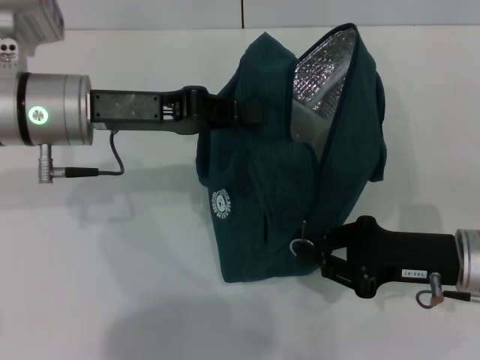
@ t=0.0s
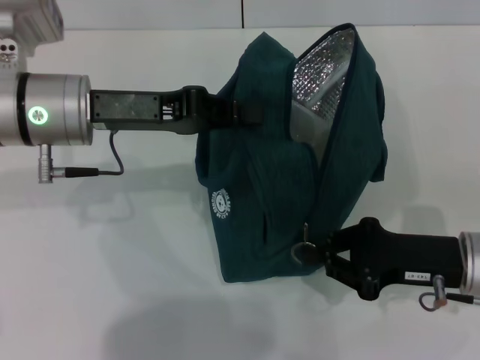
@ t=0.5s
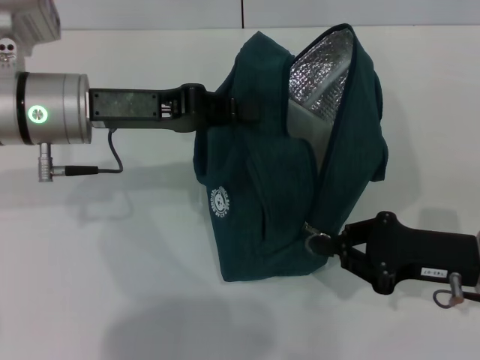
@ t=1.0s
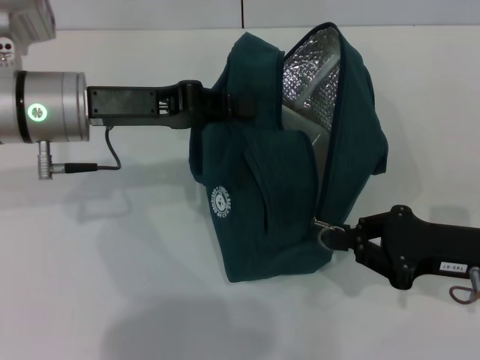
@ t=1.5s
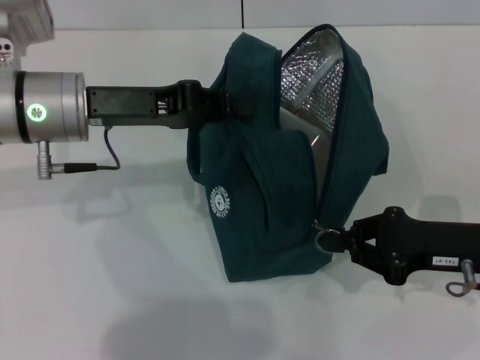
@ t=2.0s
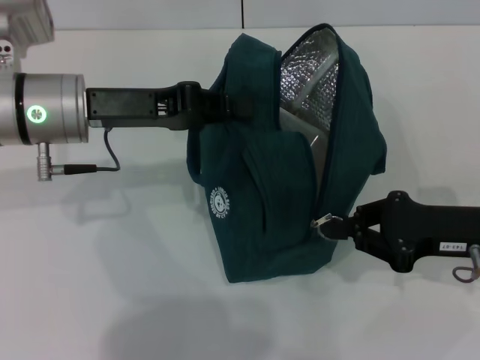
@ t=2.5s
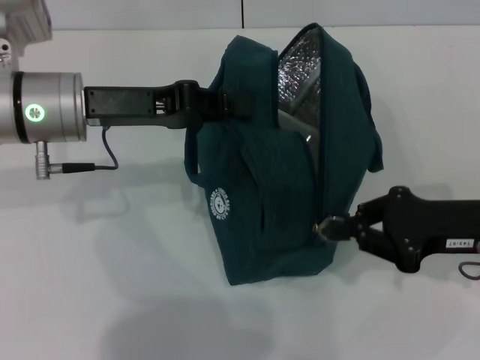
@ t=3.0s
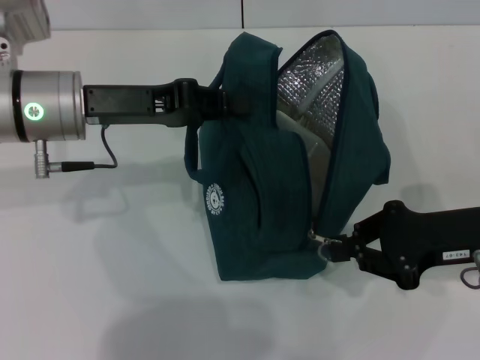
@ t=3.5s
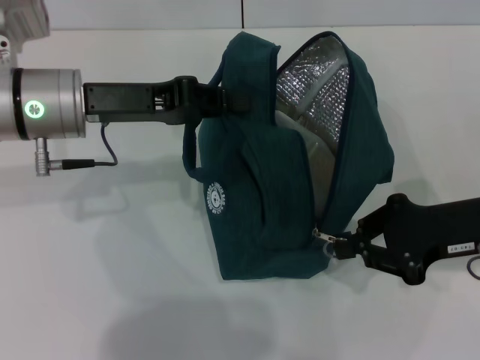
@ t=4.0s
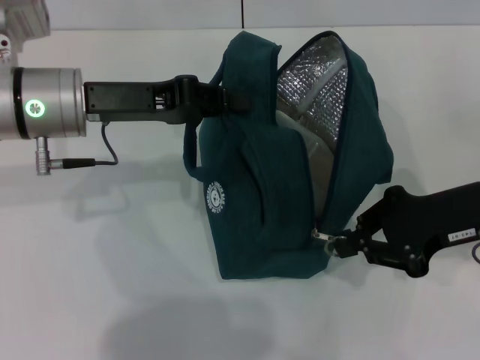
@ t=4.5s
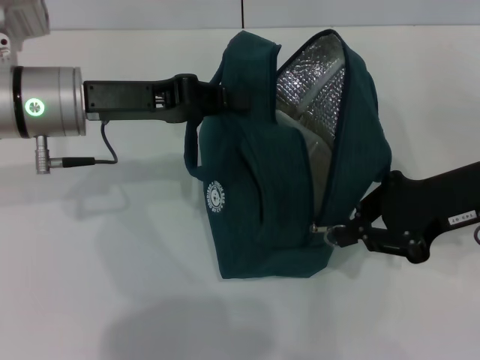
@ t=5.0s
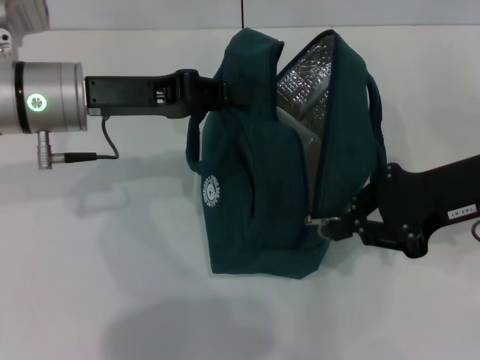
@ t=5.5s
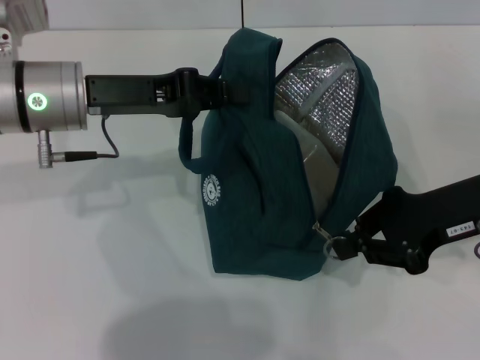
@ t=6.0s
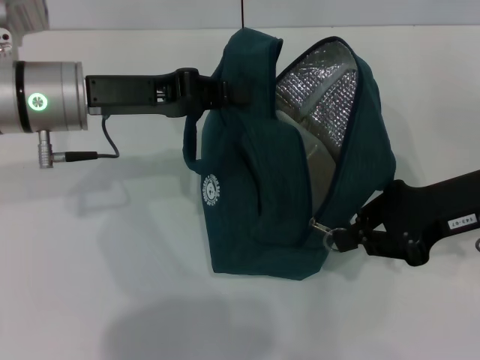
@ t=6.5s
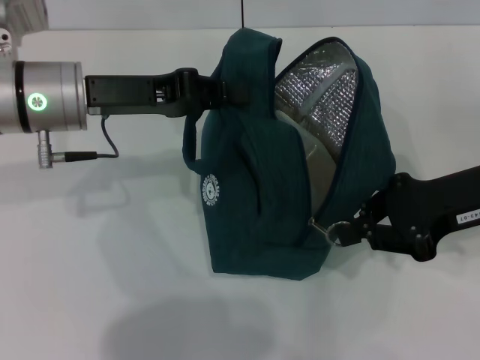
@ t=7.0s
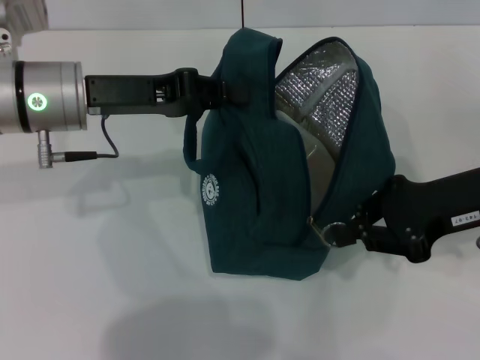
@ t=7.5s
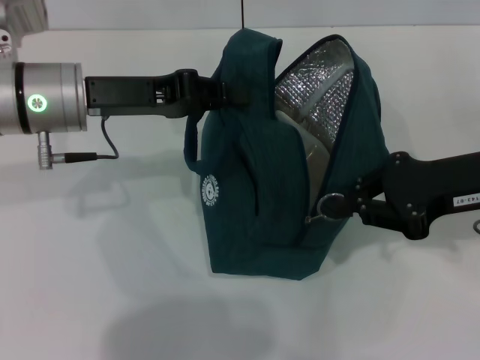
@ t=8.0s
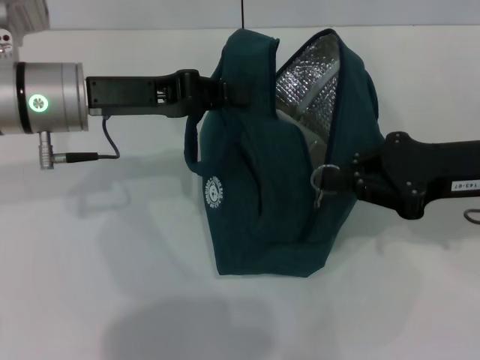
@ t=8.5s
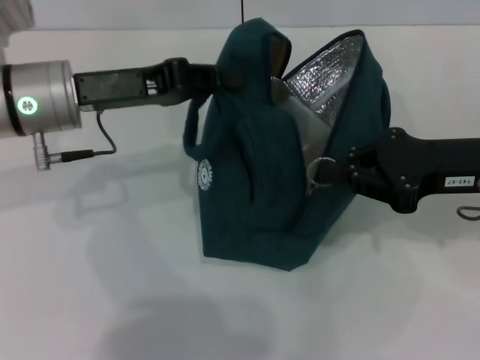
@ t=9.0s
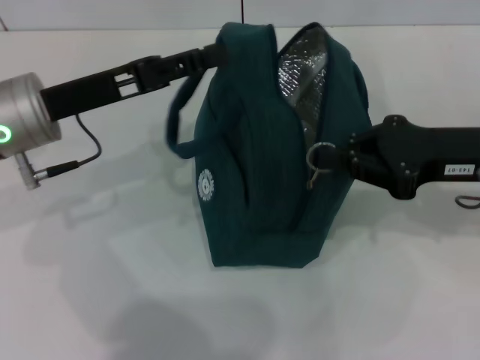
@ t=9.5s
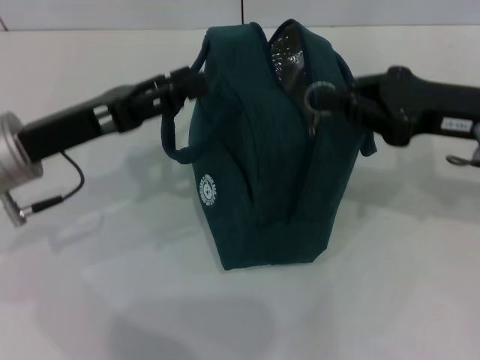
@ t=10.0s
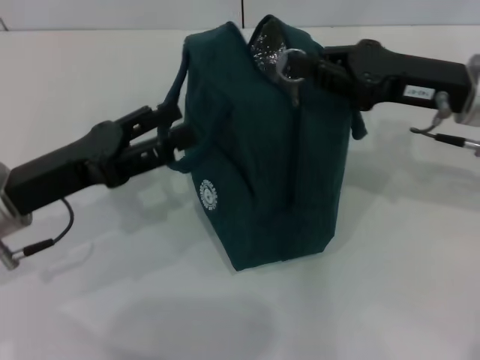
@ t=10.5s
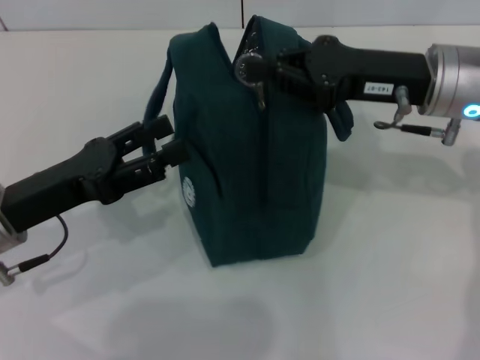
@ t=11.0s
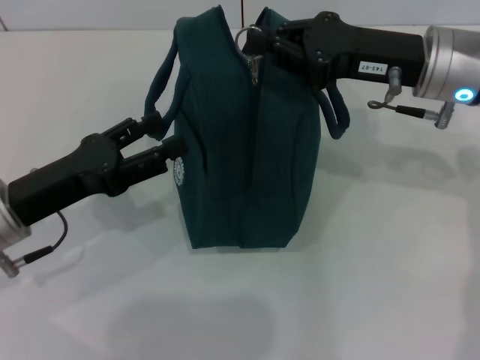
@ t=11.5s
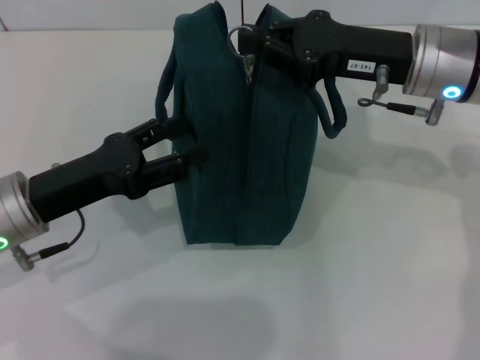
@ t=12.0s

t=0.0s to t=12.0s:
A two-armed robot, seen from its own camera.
Step, t=0.0s to t=9.5s: Hold the lunch bag with your left hand.
t=0.0s to t=2.0s: The grippers make only small movements.
t=2.0s to t=4.0s: The grippers move only a little.
t=4.0s to t=8.0s: There are only small adjustments of the grippers.
t=8.0s to t=10.0s: The left gripper goes approximately 5 cm backward, and opens up.
t=10.0s to t=12.0s: The left gripper changes place by some 5 cm, while the right gripper moves to the left, about 5 cm.

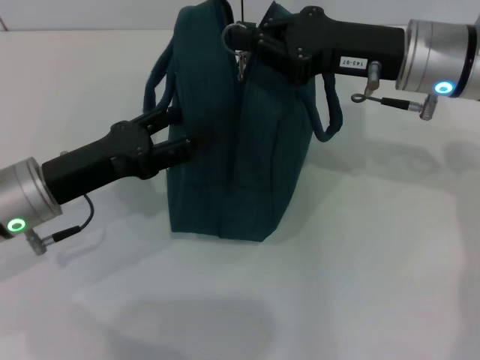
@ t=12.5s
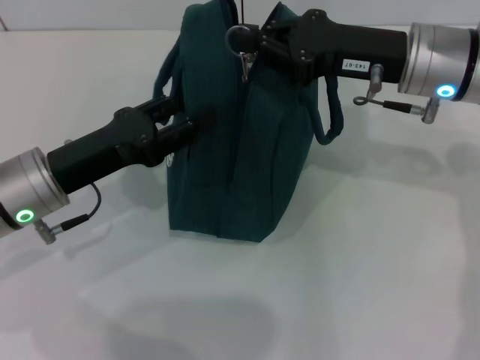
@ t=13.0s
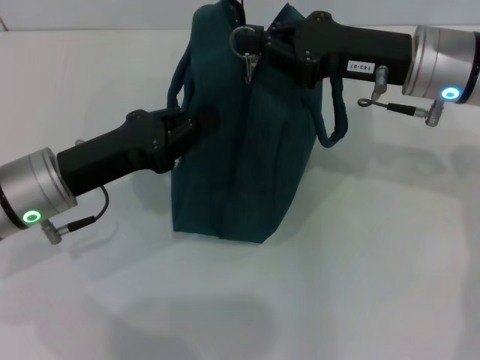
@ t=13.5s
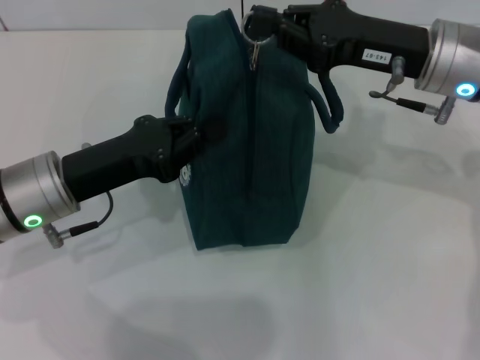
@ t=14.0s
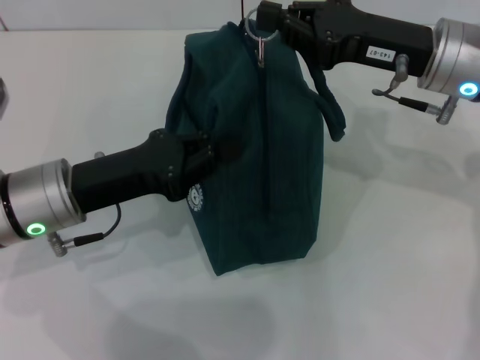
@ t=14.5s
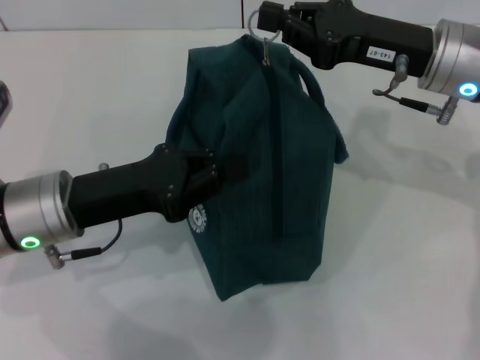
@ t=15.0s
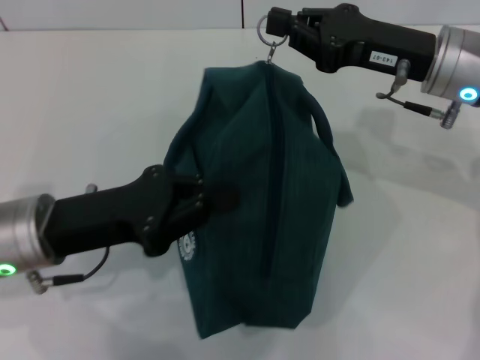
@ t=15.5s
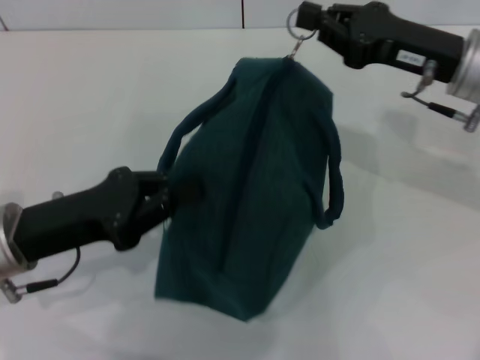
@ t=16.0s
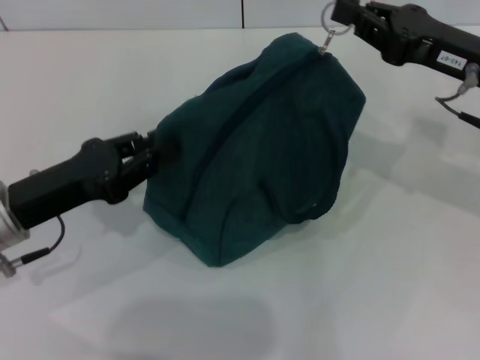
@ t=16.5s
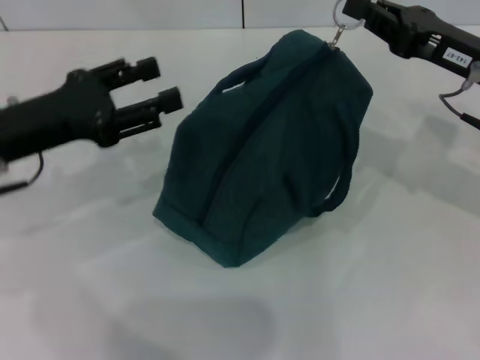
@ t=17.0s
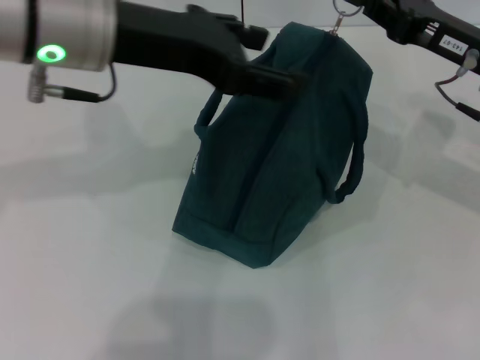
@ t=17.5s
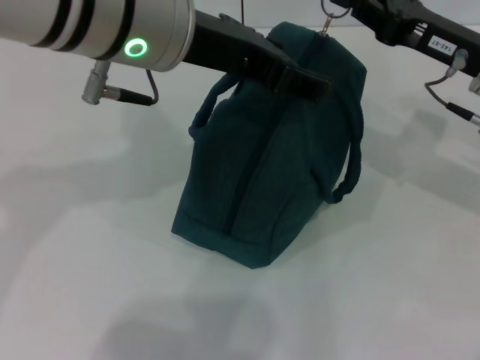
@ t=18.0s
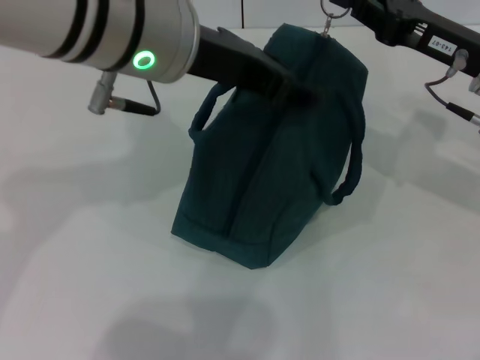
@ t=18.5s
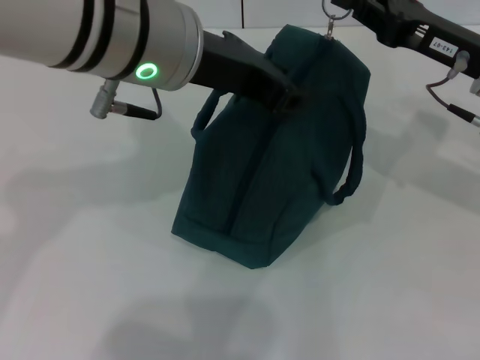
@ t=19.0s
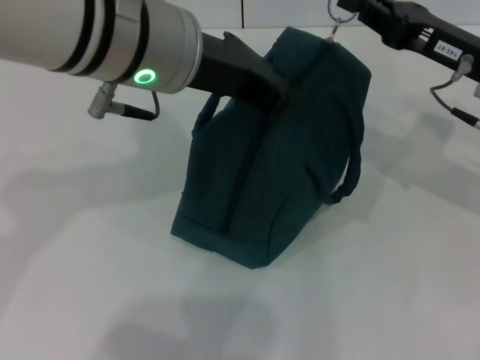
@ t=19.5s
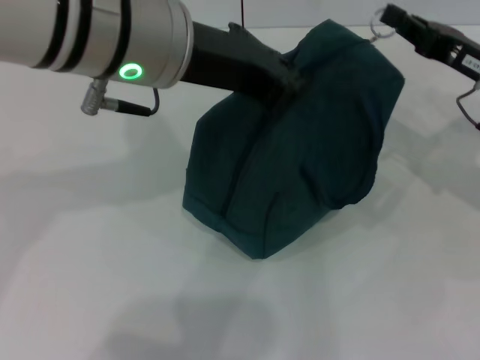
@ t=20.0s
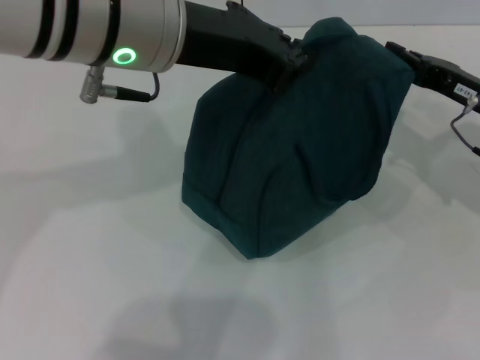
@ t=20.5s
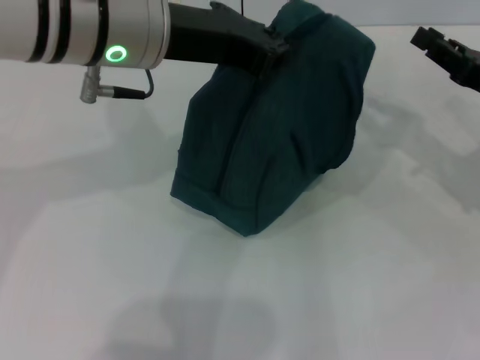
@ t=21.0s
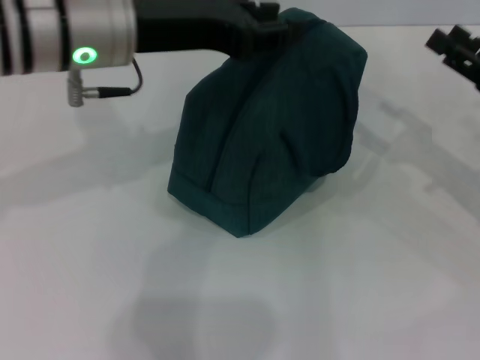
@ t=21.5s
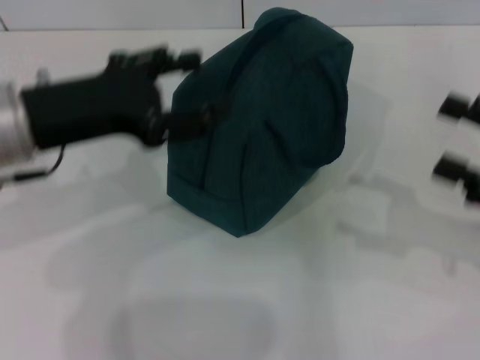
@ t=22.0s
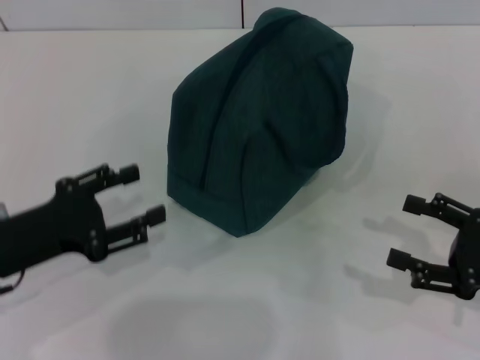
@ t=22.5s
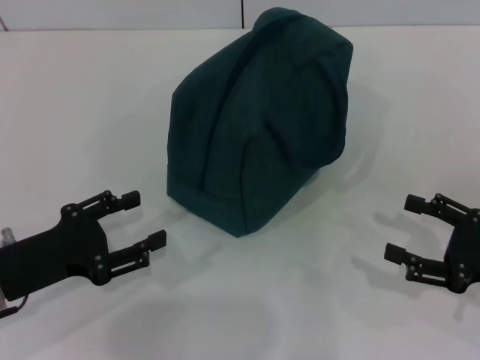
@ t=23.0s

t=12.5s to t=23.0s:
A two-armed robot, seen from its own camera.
Step, t=12.5s to t=20.5s: Zip up the lunch bag with your right hand.
Step, t=21.0s to t=21.5s: Hold the lunch bag with your left hand.
t=12.5s to t=14.5s: The left gripper closes its fingers.
t=14.5s to t=16.5s: The left gripper shifts by some 5 cm; the right gripper goes approximately 5 cm to the right.
t=16.5s to t=19.0s: The left gripper goes about 25 cm upward and to the right, and opens its fingers.
t=19.0s to t=21.0s: The left gripper closes. The right gripper goes roughly 10 cm to the right and downward.
t=21.0s to t=23.0s: The left gripper shifts approximately 30 cm downward, to the left and backward, and opens its fingers. The right gripper heads backward and downward, covering approximately 15 cm, and opens up.
